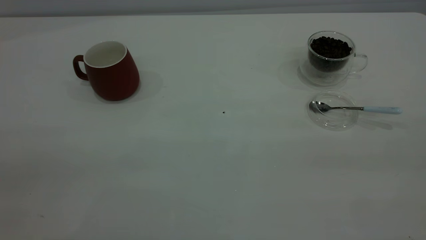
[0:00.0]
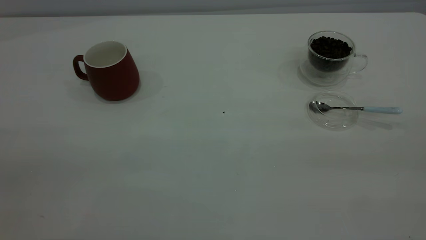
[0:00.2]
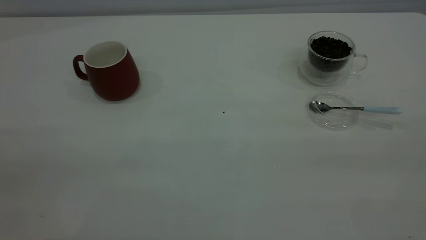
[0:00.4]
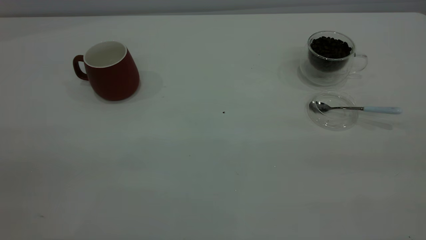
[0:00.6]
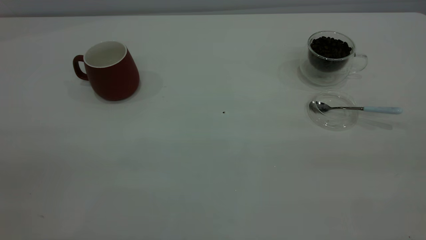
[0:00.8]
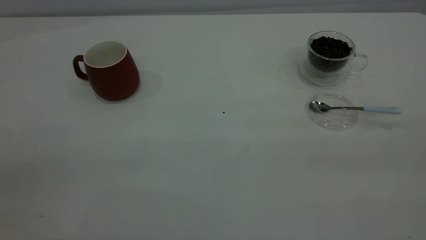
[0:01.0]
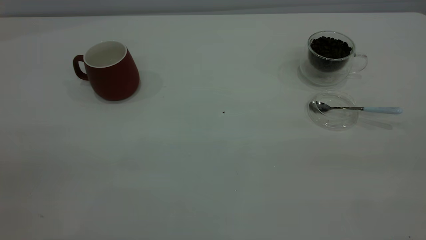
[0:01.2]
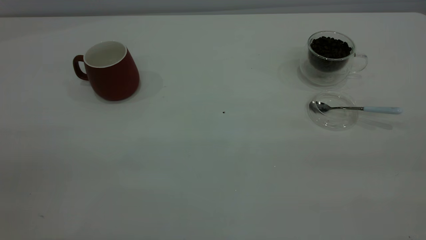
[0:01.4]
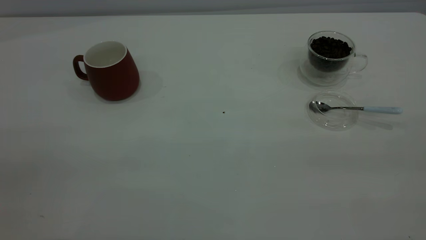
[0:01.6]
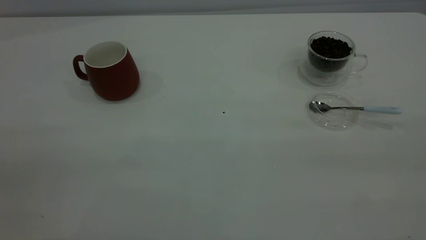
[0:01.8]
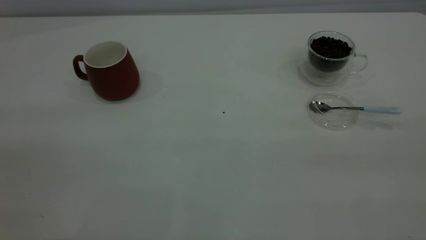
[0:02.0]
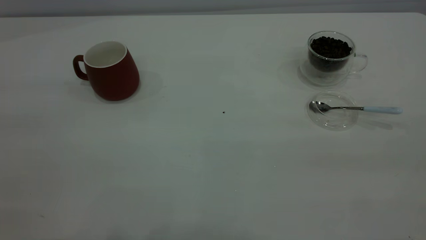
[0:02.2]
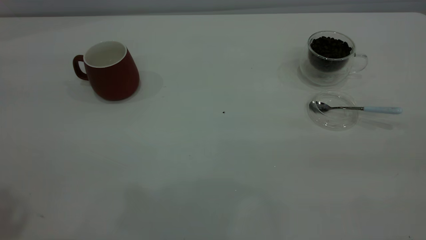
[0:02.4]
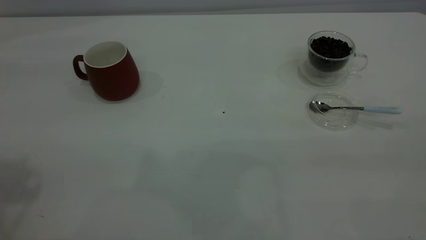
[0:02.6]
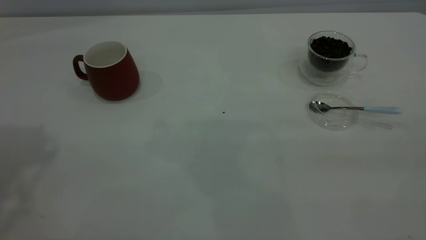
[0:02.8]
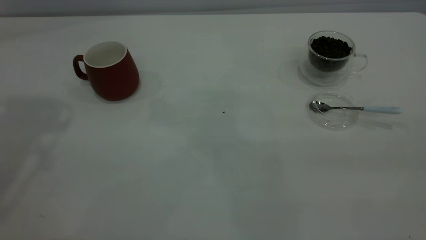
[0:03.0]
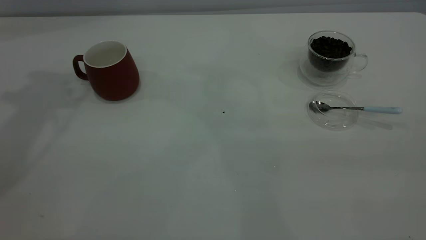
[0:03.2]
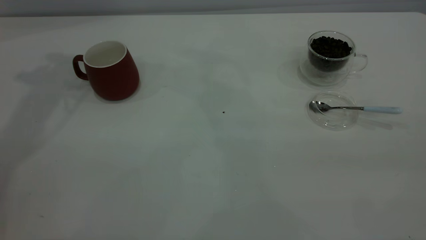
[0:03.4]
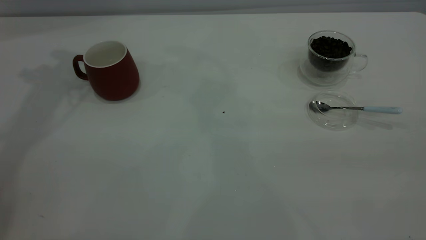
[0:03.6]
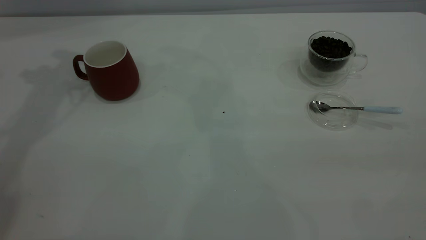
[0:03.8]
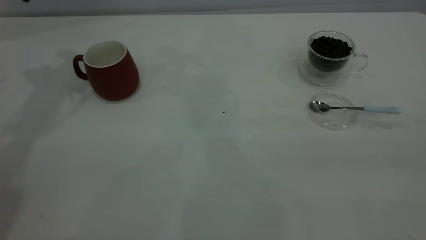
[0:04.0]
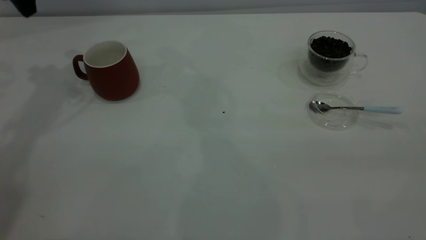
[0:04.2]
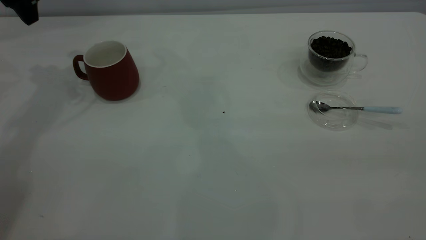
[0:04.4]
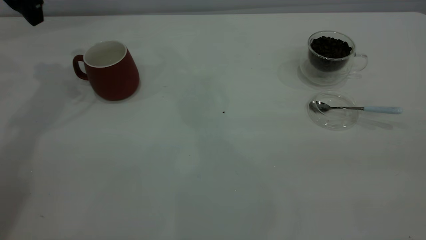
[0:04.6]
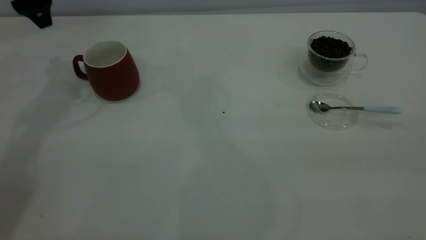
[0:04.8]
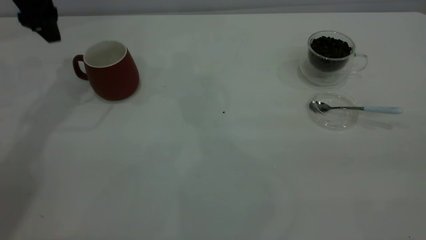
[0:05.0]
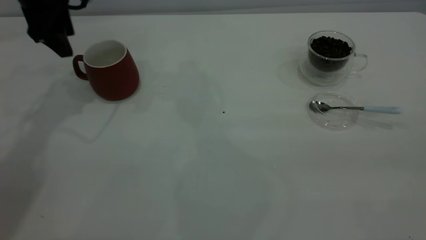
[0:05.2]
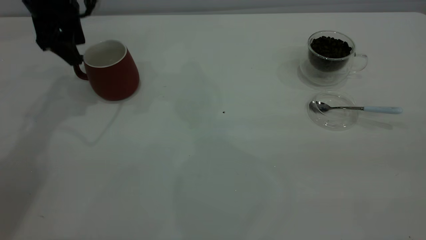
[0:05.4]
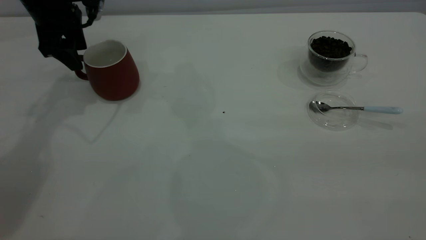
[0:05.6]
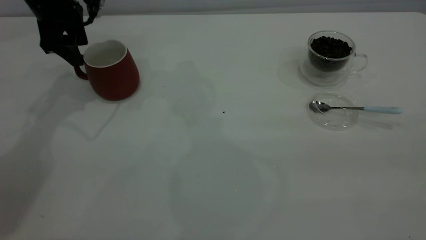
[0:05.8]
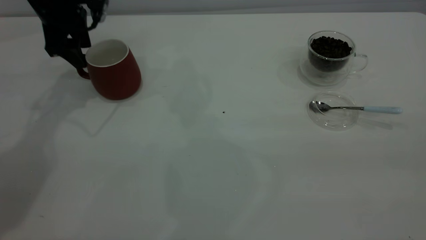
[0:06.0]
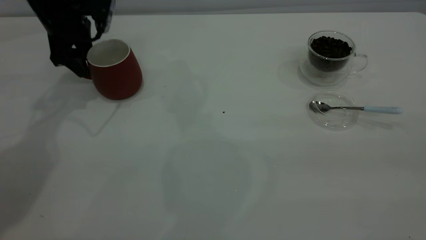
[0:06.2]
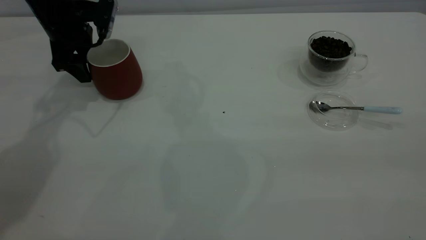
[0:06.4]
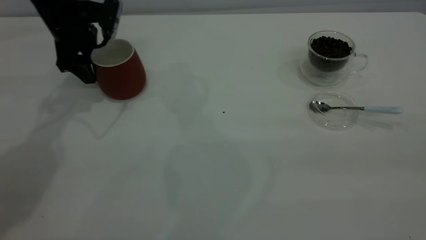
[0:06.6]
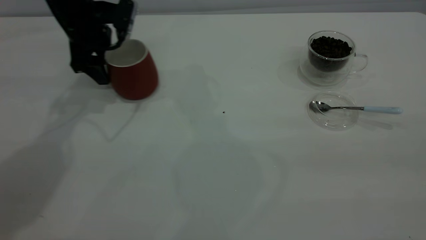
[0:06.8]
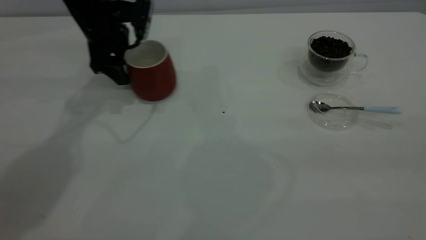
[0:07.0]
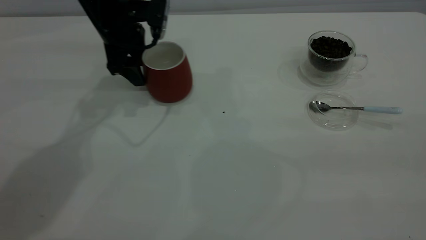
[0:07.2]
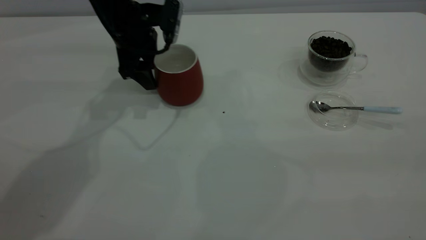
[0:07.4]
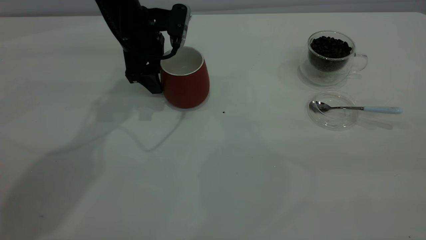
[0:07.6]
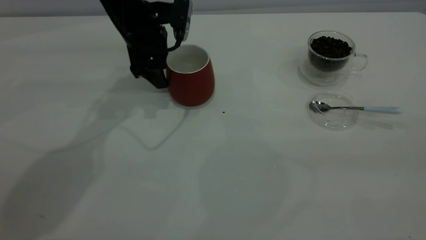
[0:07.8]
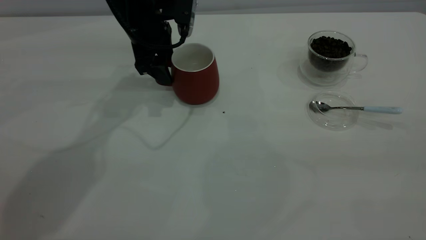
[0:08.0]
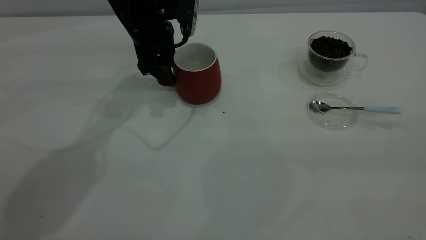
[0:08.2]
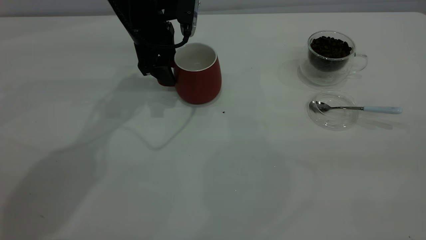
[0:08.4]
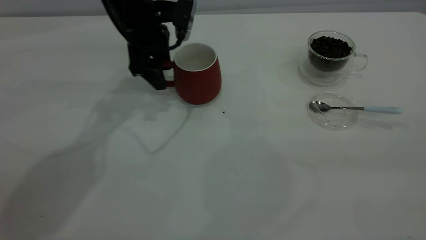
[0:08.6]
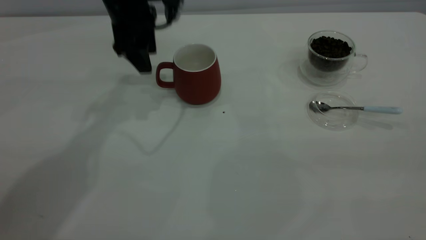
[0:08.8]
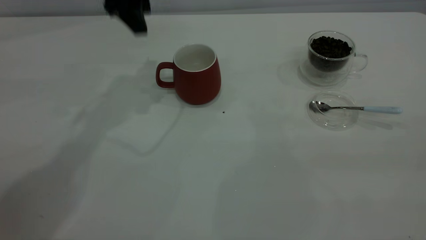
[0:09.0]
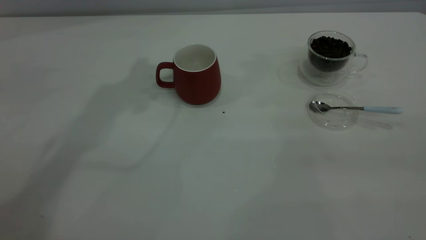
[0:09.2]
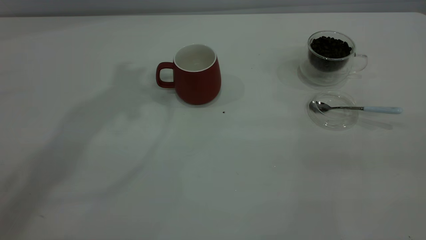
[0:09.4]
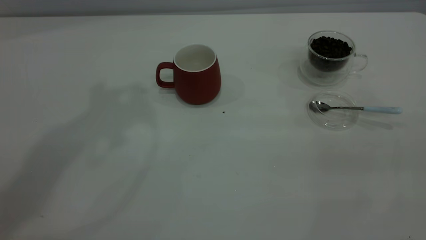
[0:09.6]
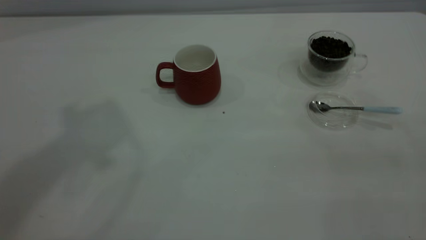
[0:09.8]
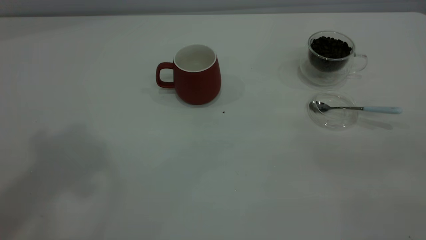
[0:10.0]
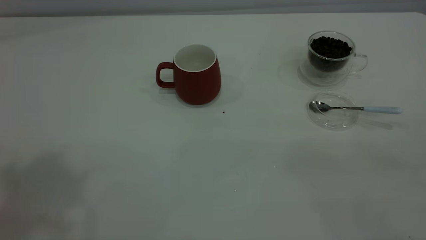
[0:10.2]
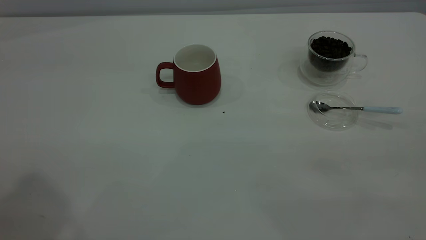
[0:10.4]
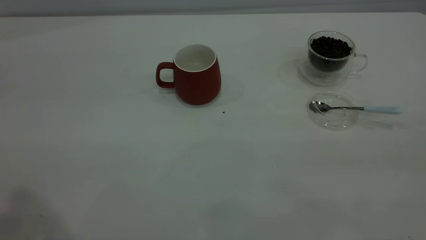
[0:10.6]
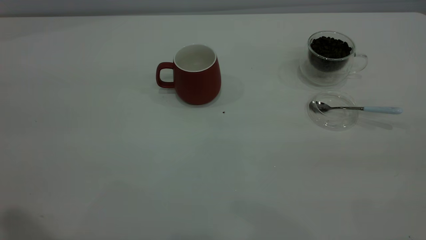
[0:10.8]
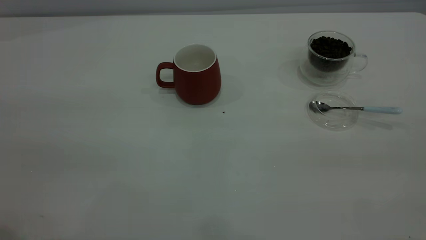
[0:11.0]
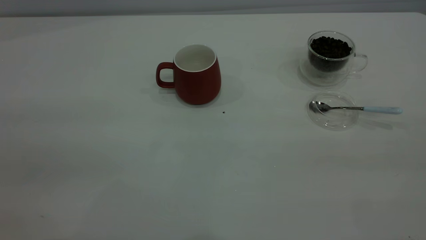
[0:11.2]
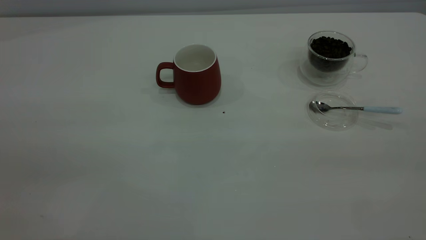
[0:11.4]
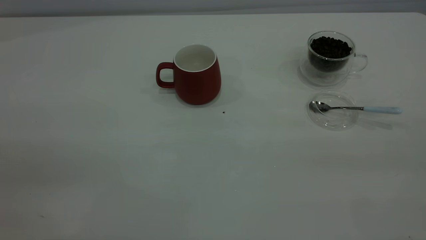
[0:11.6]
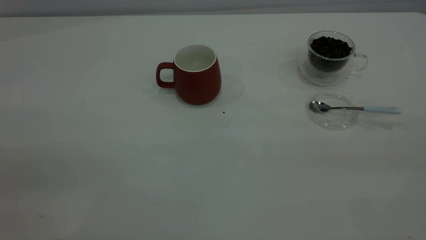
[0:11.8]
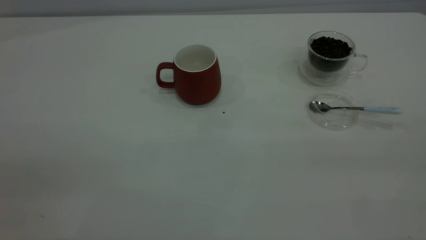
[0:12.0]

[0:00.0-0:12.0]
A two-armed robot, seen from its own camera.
Task of the whole recording: the left gripper place the red cup in the center of the table, the right gripper take the blue spoon from the cup lid and scoop out the coffee beans from the coffee cup and put them into the red cup, the right gripper put the spoon back into the cup lid.
Step, 0:00.0 to 0:08.8: Move the cup to the center of view.
0:00.0 to 0:01.6: Neither gripper changes place.
0:04.4 to 0:06.0: The left gripper shifts some 10 cm downward.
0:06.0 to 0:07.6: The left gripper heads to the right, covering some 10 cm.
0:07.6 to 0:09.0: The left gripper heads upward, covering some 15 cm.
0:09.0 to 0:10.4: The left gripper is displaced backward and upward by approximately 40 cm.

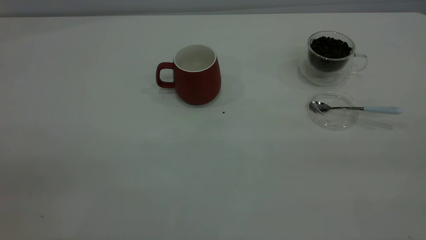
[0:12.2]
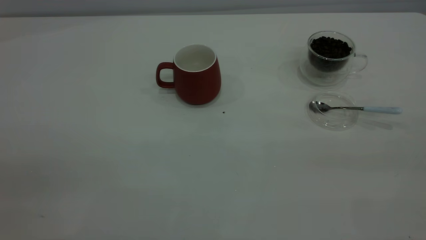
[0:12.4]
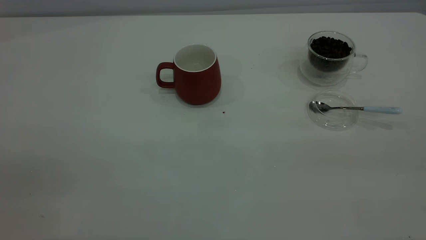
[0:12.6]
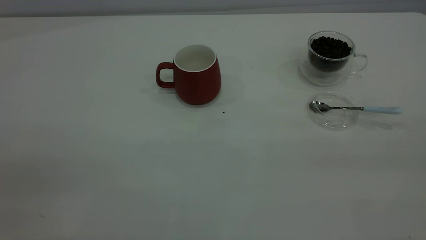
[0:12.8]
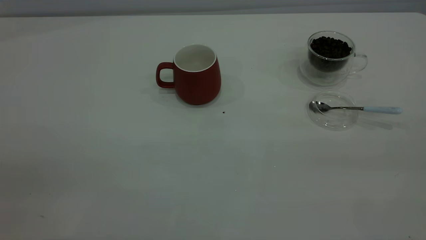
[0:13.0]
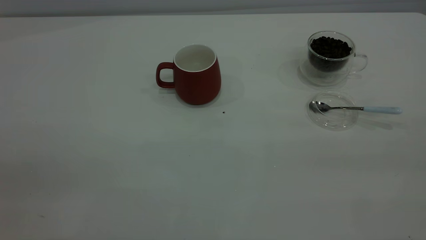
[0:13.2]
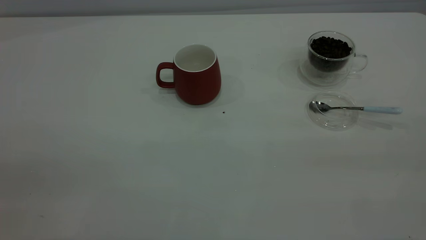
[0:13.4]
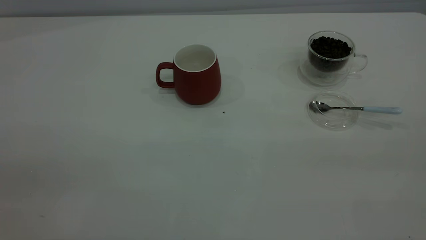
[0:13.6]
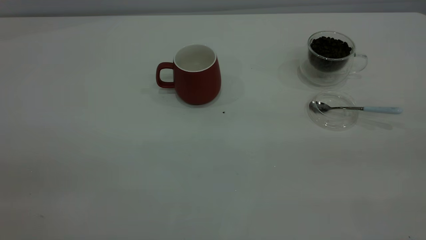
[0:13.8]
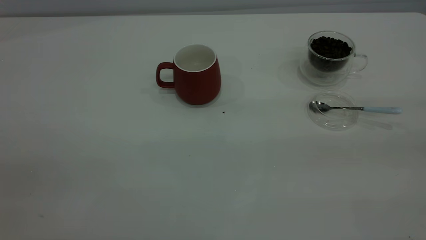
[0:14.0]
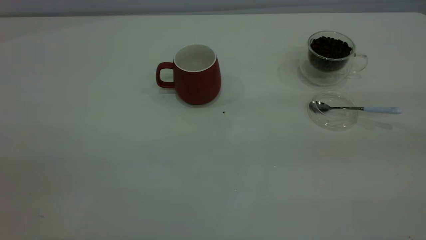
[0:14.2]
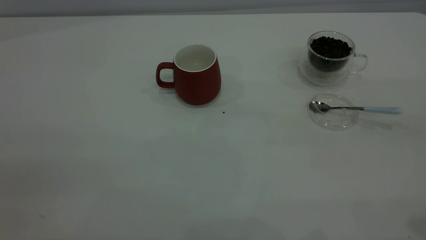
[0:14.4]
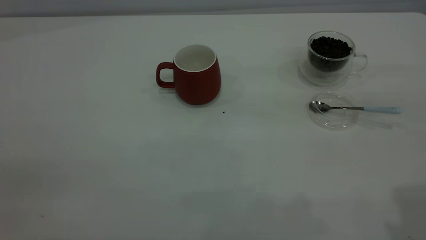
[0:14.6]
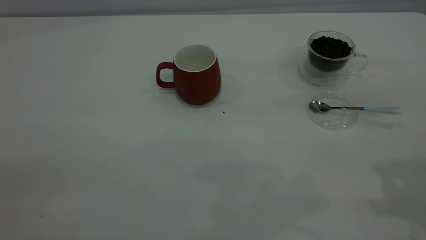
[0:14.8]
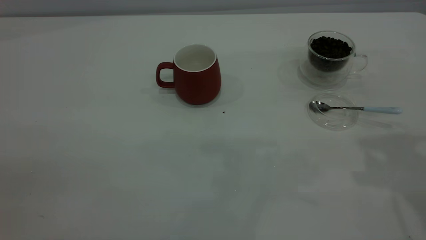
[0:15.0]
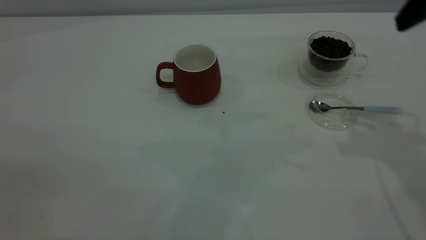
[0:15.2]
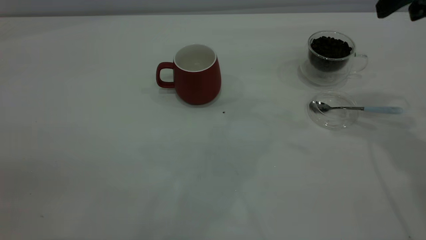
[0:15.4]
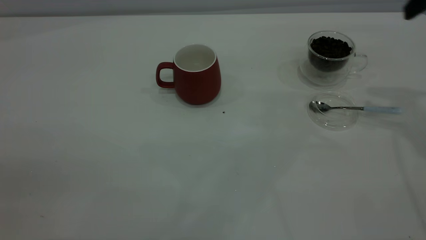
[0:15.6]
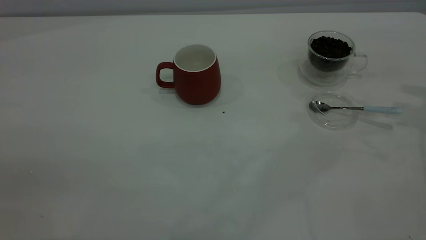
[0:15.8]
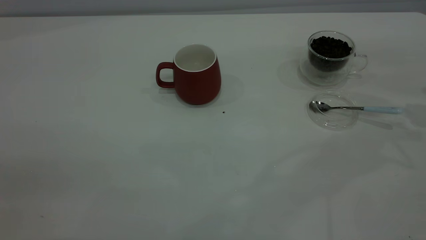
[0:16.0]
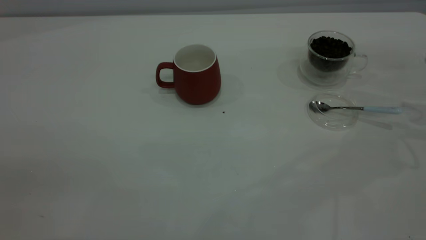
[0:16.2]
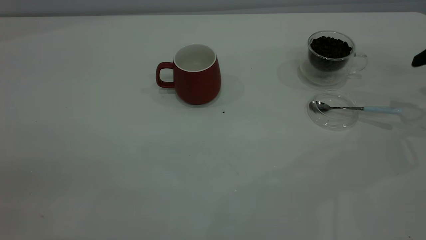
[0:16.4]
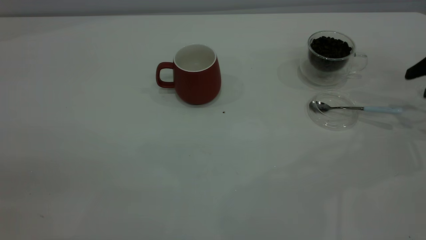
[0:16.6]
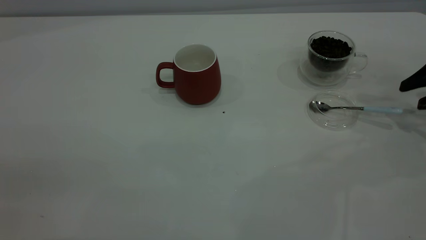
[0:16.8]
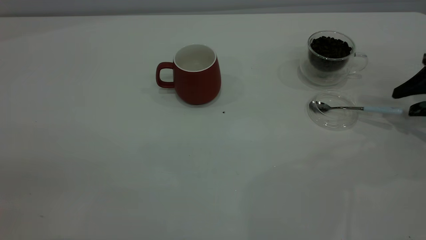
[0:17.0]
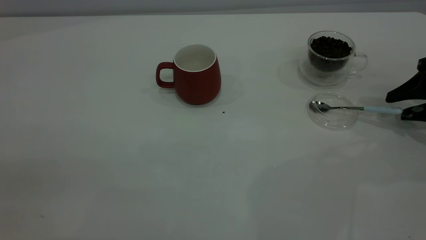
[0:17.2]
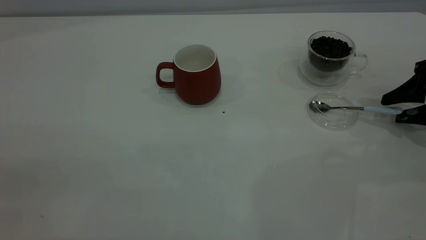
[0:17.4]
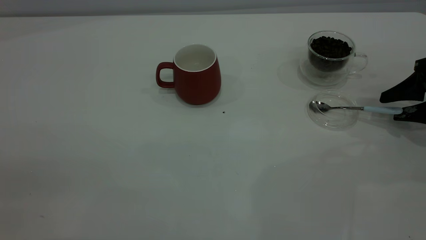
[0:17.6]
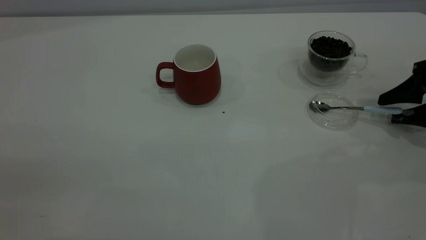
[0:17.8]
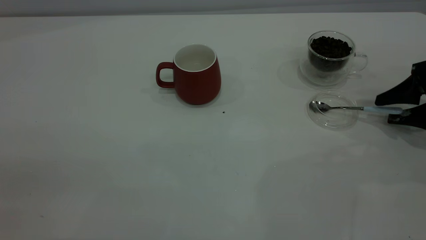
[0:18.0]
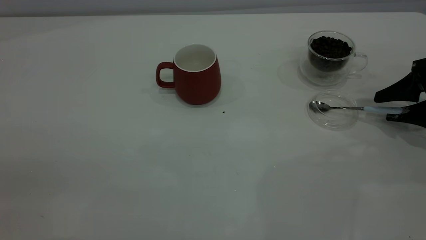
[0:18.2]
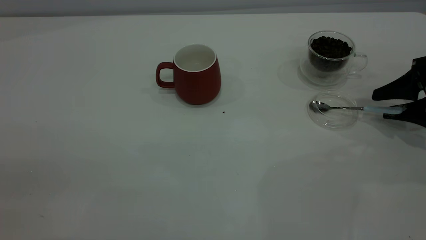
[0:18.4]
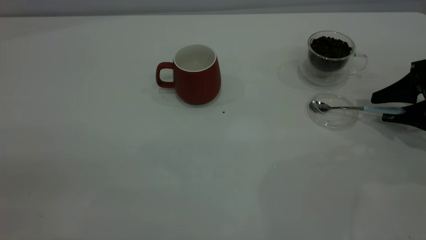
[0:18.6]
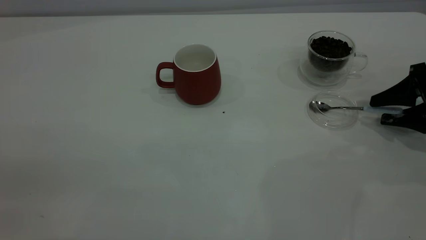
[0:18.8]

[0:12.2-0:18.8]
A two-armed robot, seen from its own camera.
Task of the whole recording: the left gripper place the red cup in the center of the table, the right gripper take the blue spoon from the cup lid and scoop out the coffee beans from the coffee cup and put them into the red cup, the right gripper put the spoon back into the cup lid.
0:13.8 to 0:15.4: The right gripper goes approximately 30 cm forward.
0:15.4 to 0:17.2: The right gripper heads downward and to the right, covering some 25 cm.
0:17.2 to 0:18.8: The grippers make only small movements.
